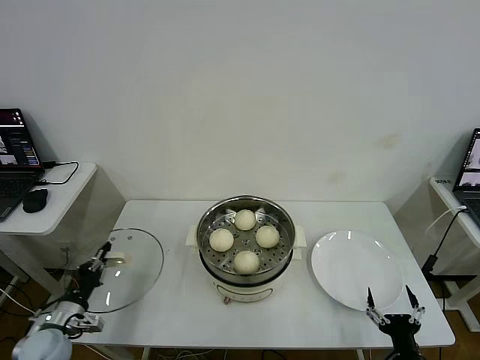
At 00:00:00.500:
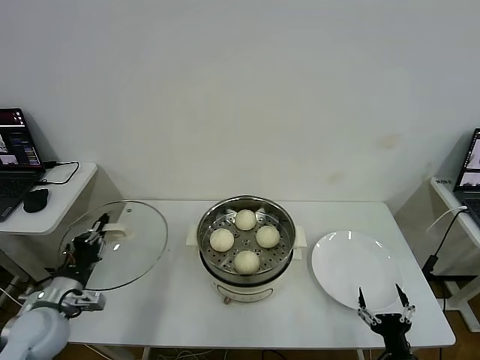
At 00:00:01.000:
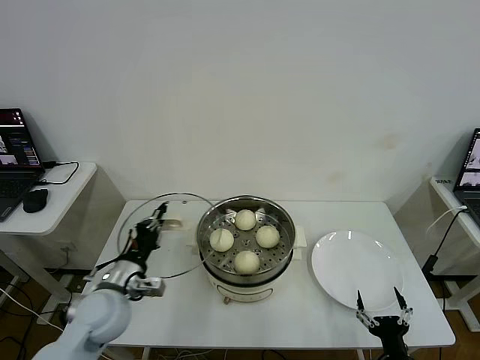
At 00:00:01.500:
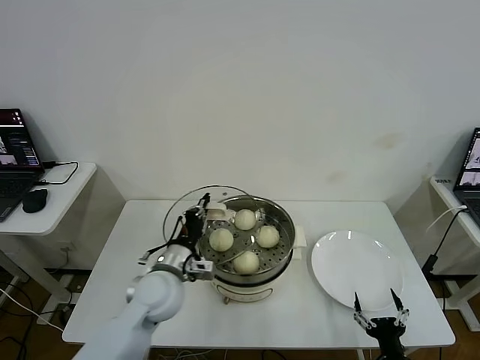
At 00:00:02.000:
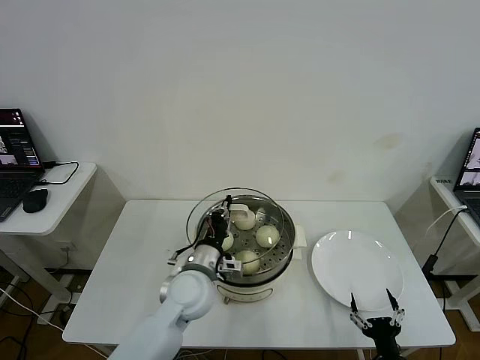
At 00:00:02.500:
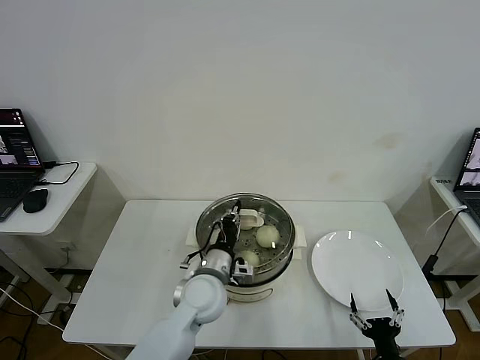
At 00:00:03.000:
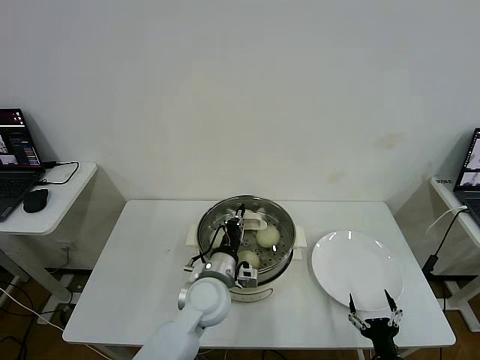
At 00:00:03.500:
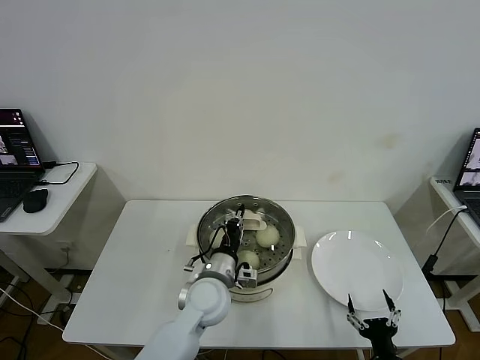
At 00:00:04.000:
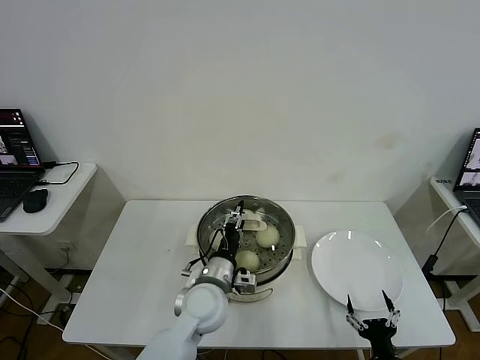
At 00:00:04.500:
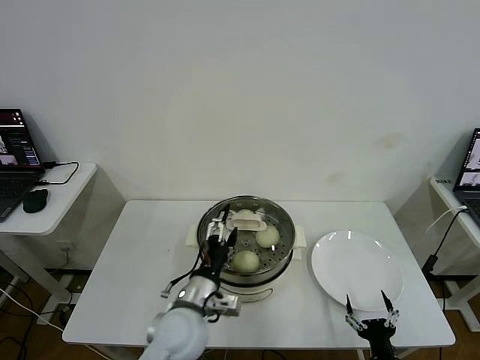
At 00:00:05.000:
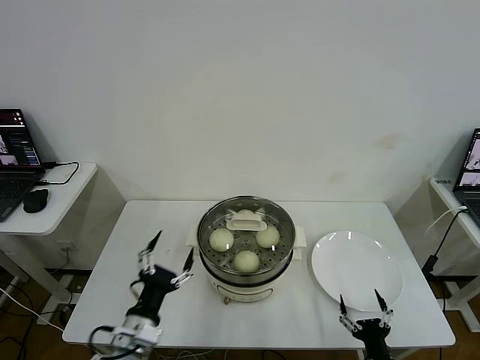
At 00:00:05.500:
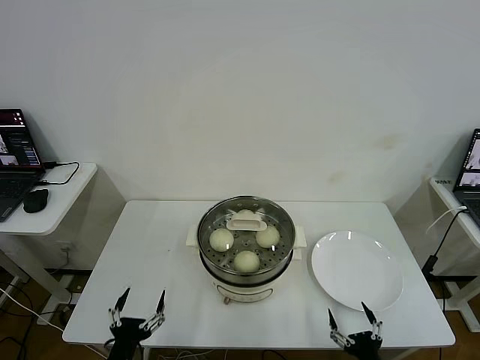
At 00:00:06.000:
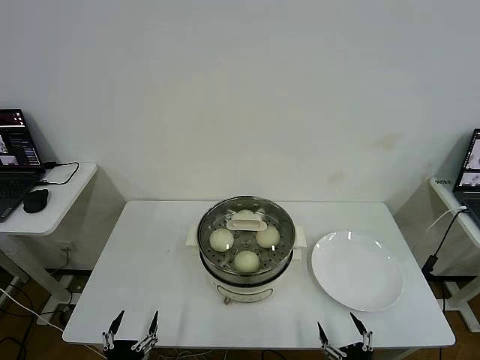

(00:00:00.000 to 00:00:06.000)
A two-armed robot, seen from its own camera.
Task of the whole recording: take steamed baozi put them in steamer then cover it.
Step, 00:00:00.000 - 00:00:04.000: Place the pot lid on the steamer with left gripper.
00:00:00.000 - 00:00:02.000: The left gripper travels to the right by roughly 30 cm.
00:00:02.000 - 00:00:04.000: The left gripper opens up.
00:00:04.000 - 00:00:06.000: The right gripper ends up about 5 cm from where it was. The left gripper goes roughly 35 cm backward, to the left and downward, and opens its fingers.
